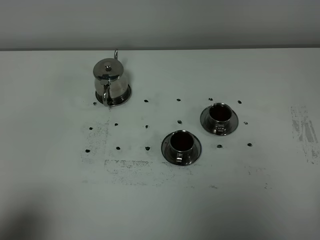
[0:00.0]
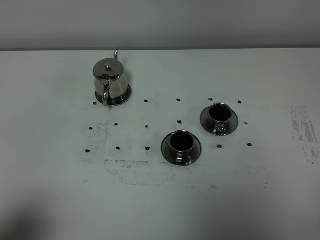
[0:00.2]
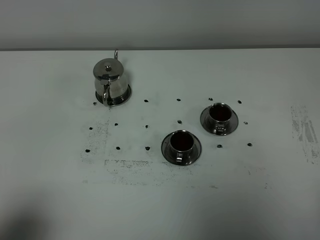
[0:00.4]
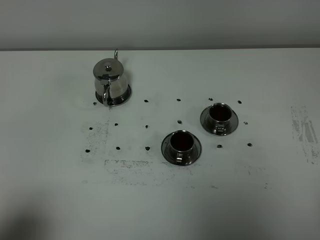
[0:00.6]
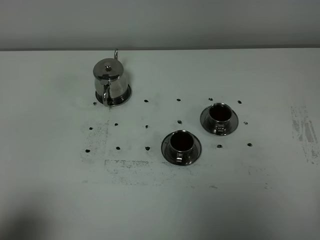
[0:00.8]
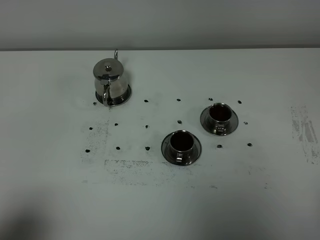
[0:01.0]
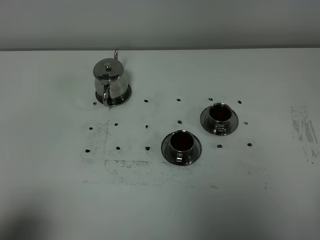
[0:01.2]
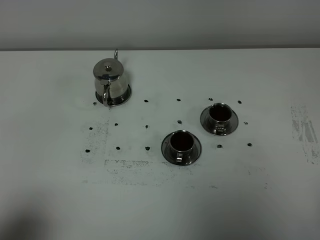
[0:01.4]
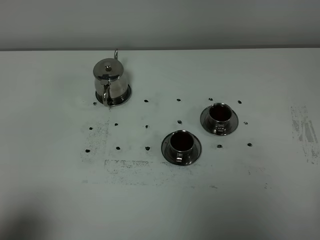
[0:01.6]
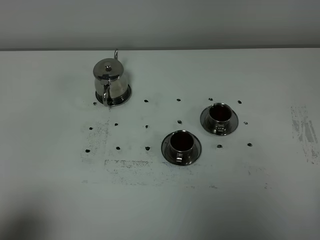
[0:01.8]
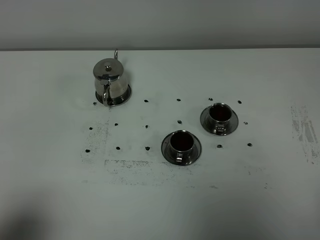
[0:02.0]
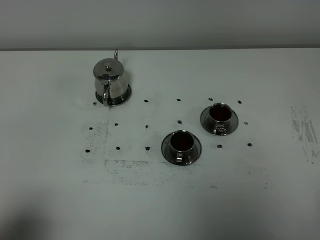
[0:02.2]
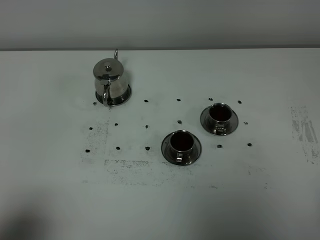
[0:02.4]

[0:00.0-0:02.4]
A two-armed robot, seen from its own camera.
Task of the whole recording: grasp the stainless steel teapot and pour the tea into the two stainless steel teacups one by one, put the stainless steel teapot back in its original place.
0:00.0 to 0:02.4: The two grippers keep their place.
